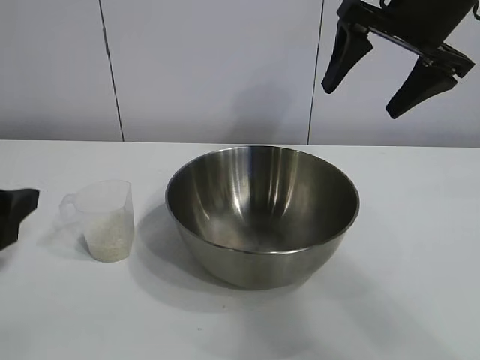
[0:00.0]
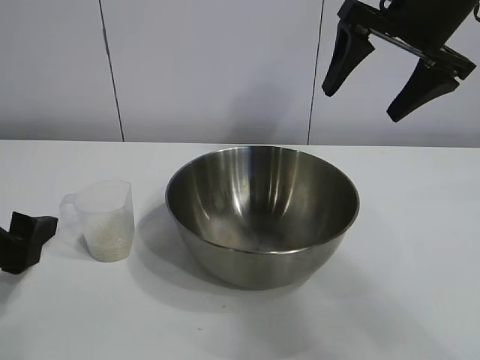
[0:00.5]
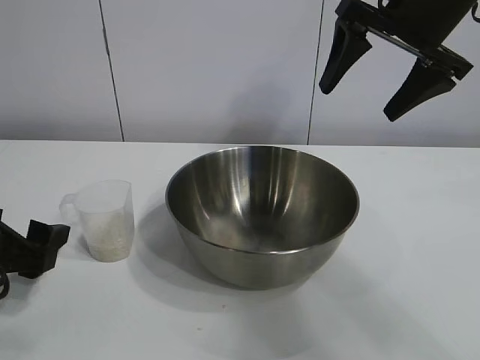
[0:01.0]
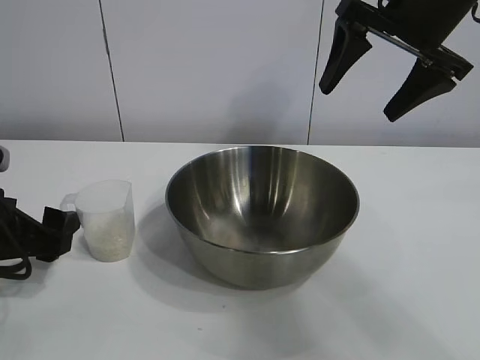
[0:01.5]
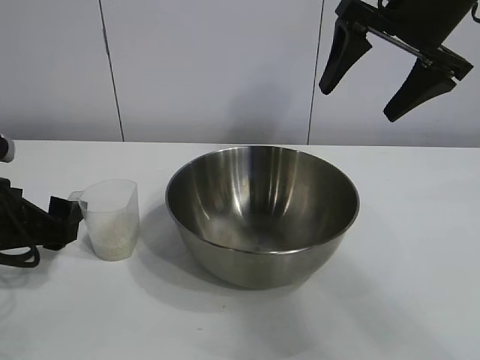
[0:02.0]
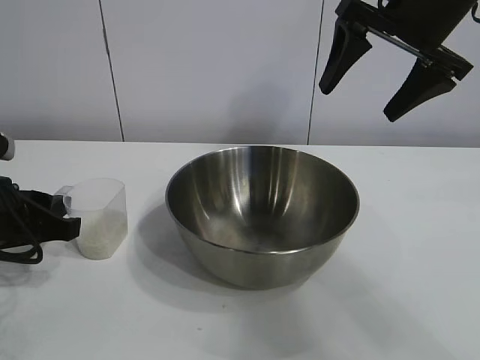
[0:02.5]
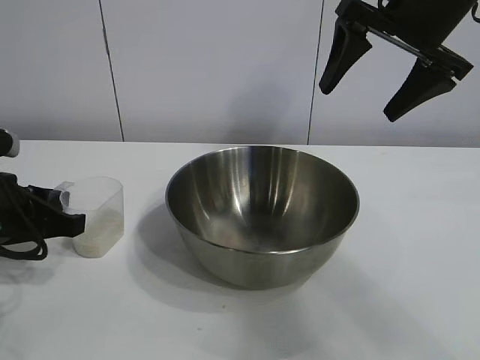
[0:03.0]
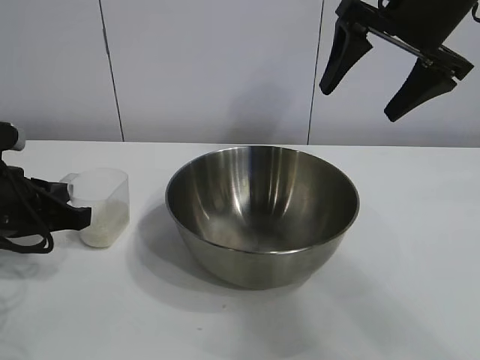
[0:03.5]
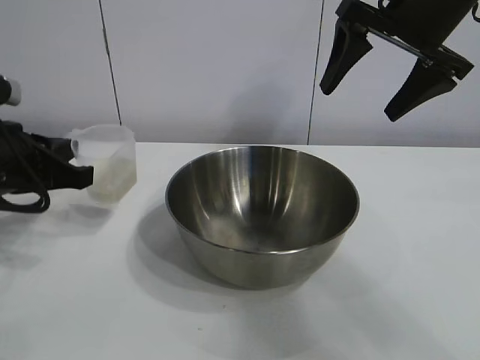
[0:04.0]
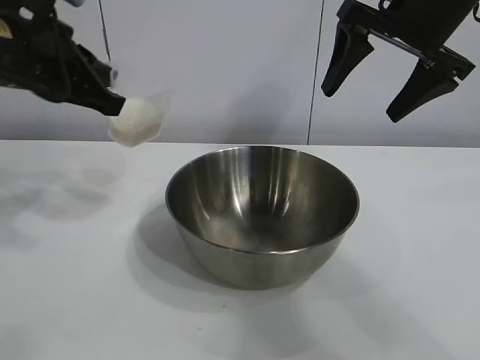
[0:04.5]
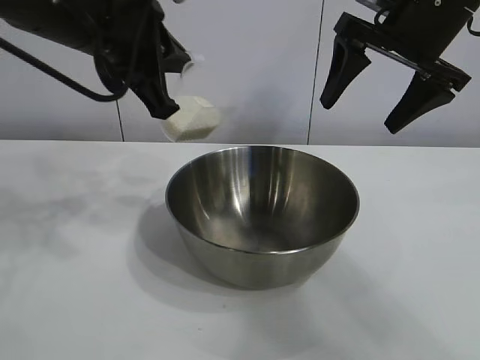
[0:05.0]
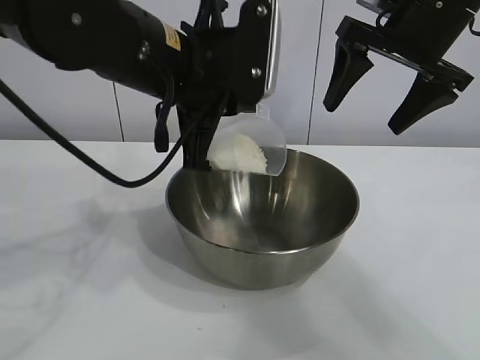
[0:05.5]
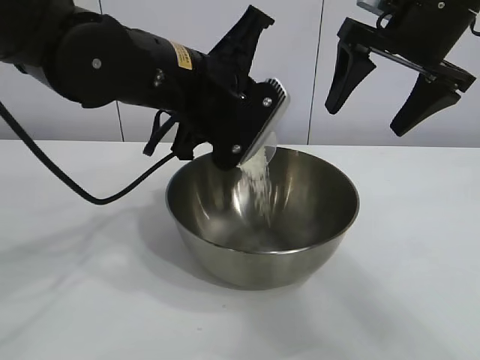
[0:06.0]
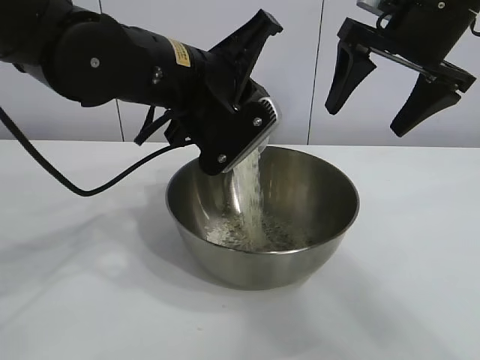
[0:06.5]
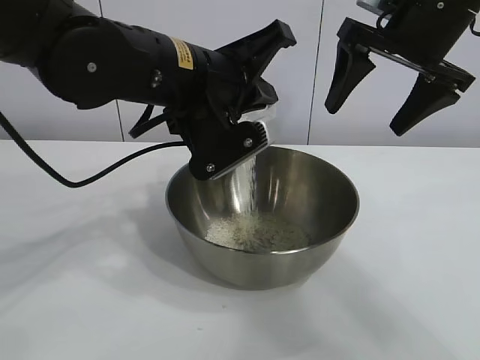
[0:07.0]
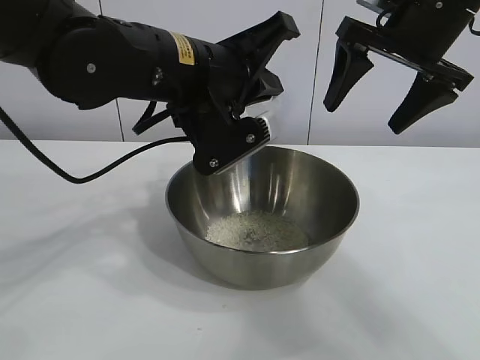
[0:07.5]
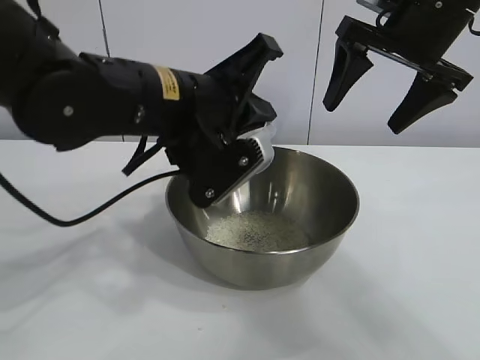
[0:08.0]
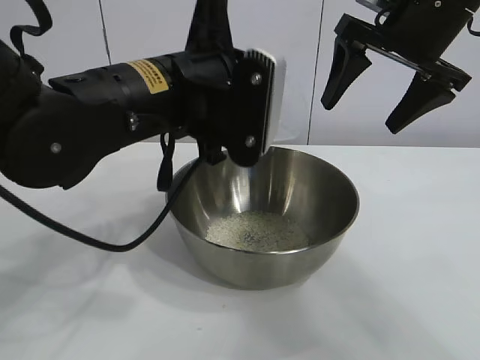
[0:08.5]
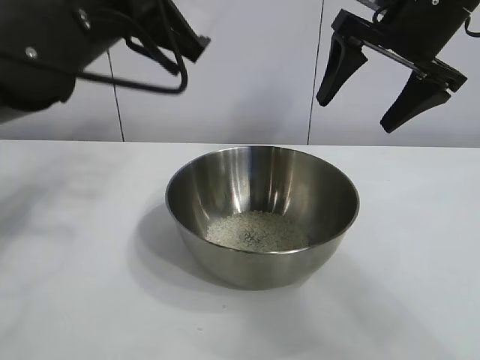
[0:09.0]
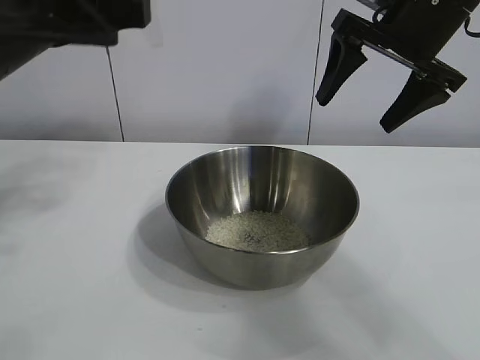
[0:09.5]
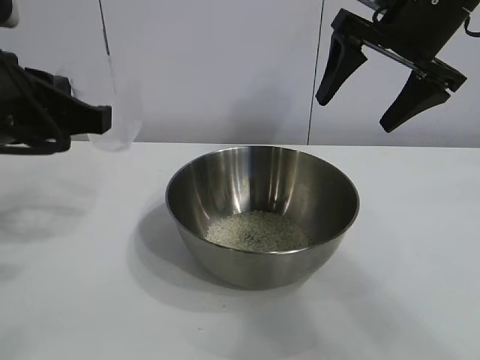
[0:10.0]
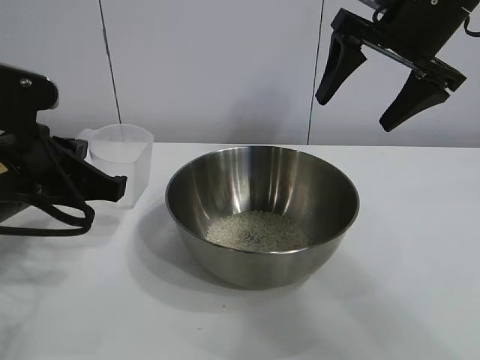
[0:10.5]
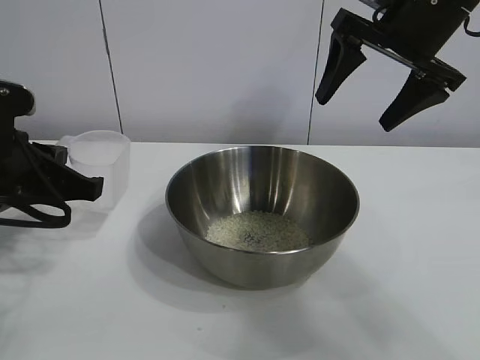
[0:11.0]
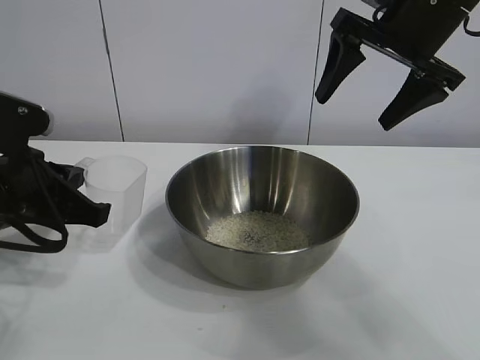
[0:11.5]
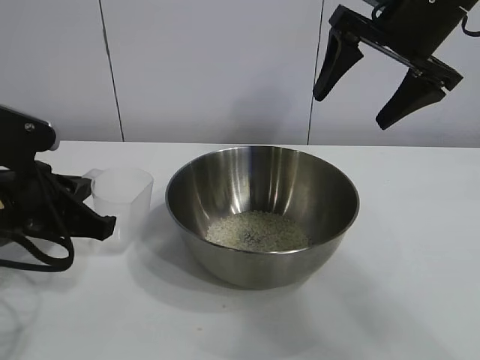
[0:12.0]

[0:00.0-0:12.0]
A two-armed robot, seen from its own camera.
Task of the whole recording: the right gripper grasp the rice container and place it in the center of the table, the left gripper grasp the rice scoop and pour the rice into the rice container.
Step, 0.0 to 3.0 s: Grasp the cup with rice in it with left gripper.
Step, 3.5 to 8.0 s: Pour the rice from the cup into the bowl with the left gripper.

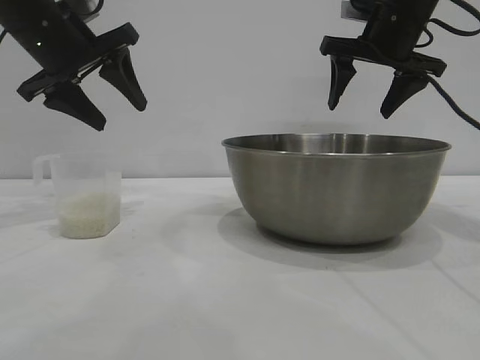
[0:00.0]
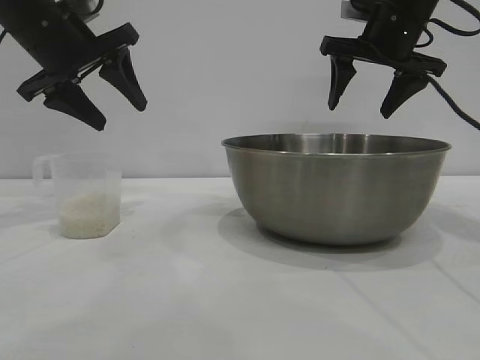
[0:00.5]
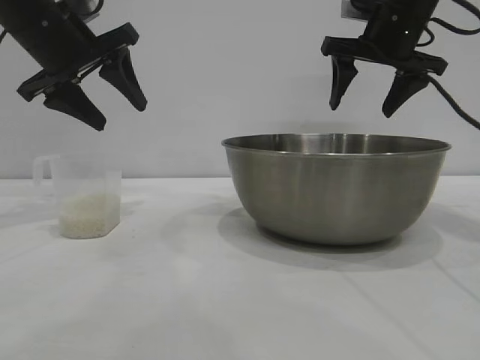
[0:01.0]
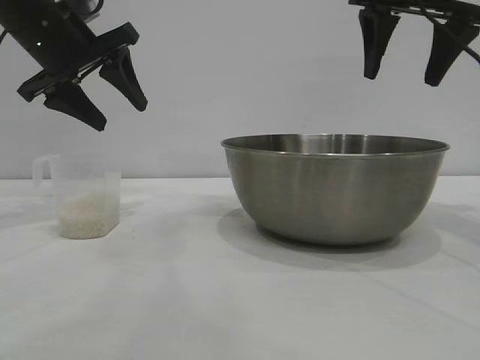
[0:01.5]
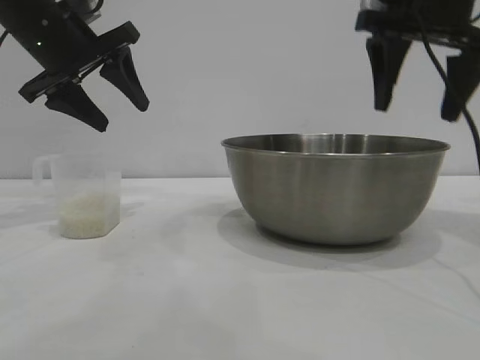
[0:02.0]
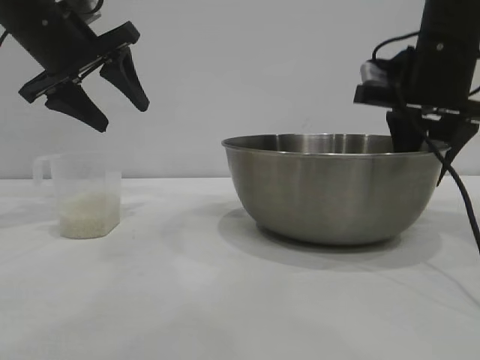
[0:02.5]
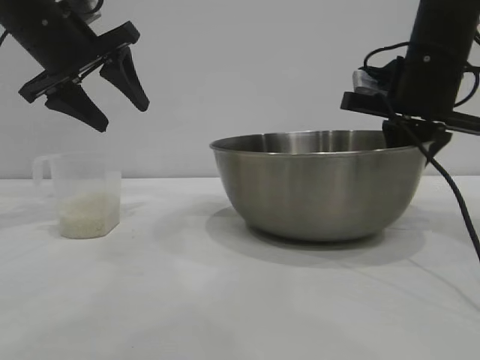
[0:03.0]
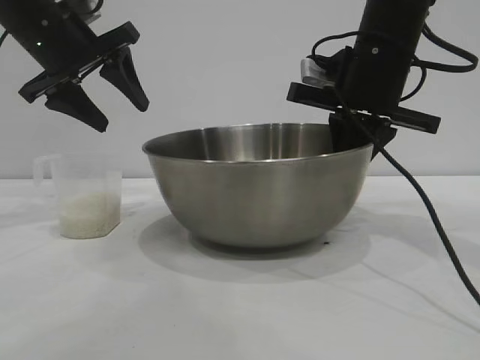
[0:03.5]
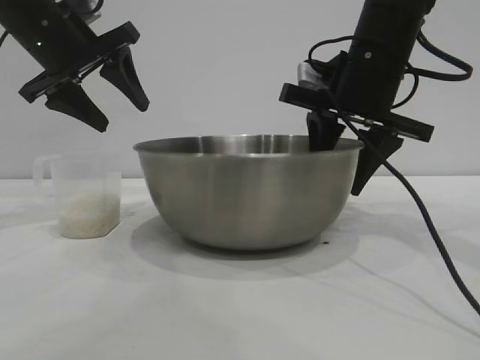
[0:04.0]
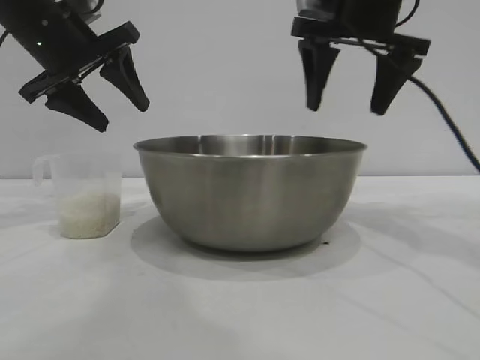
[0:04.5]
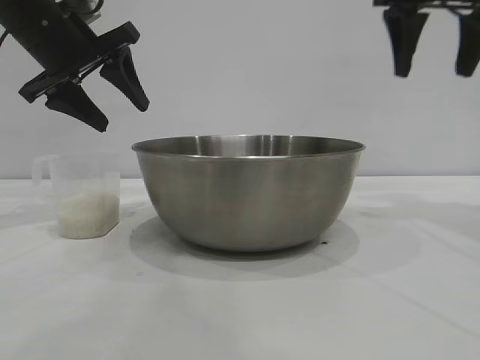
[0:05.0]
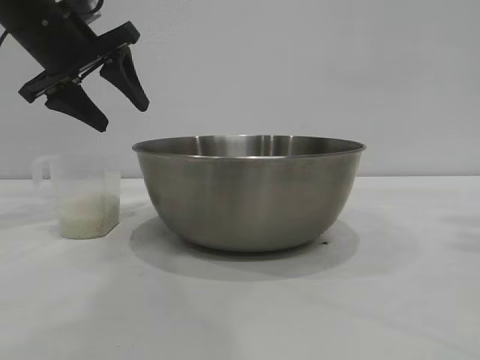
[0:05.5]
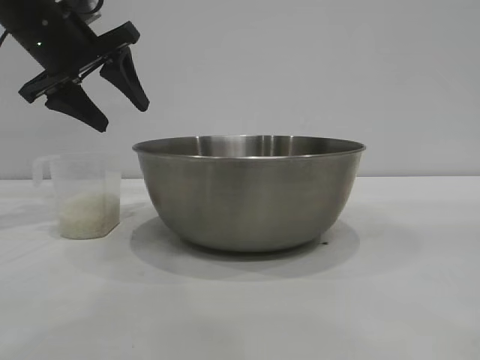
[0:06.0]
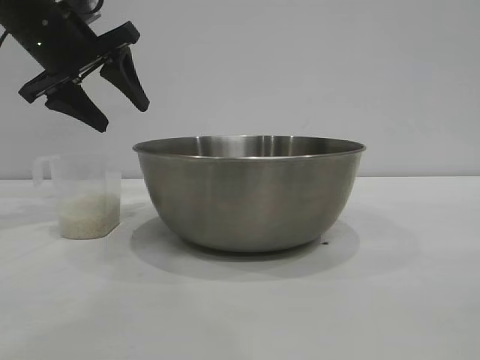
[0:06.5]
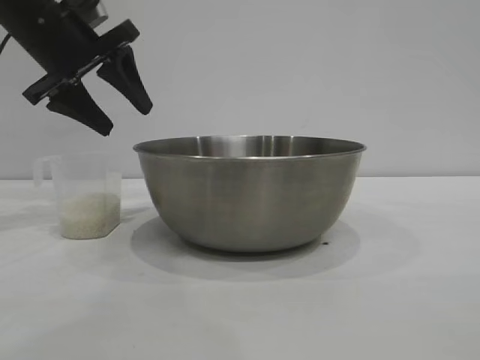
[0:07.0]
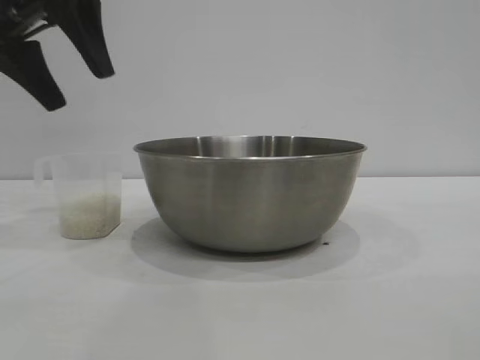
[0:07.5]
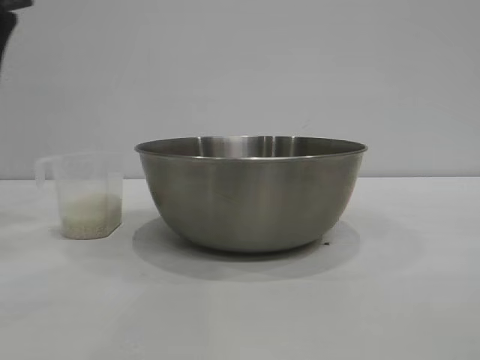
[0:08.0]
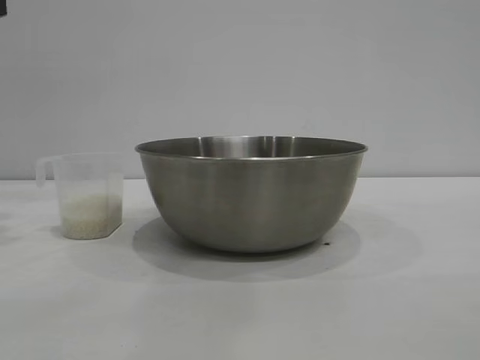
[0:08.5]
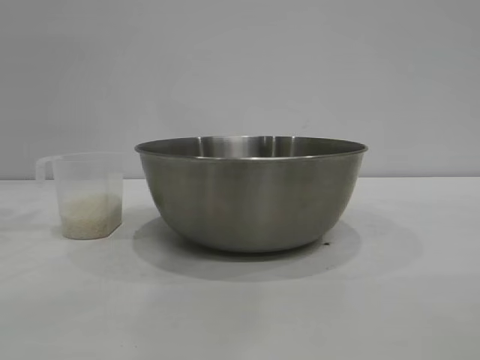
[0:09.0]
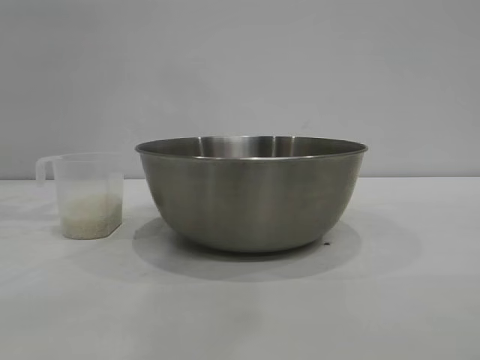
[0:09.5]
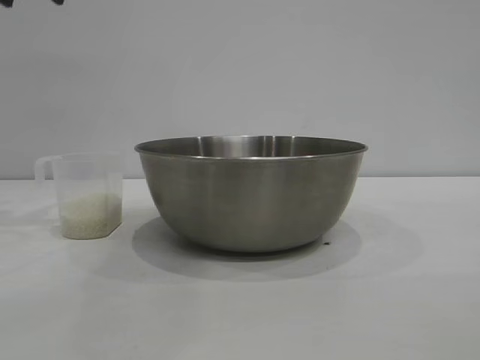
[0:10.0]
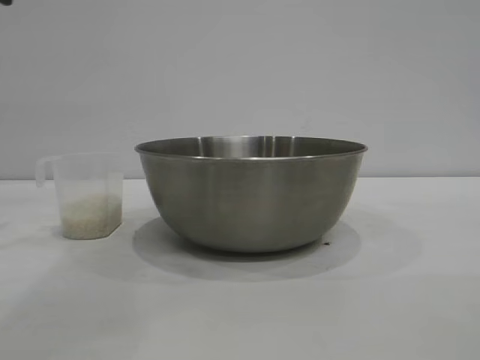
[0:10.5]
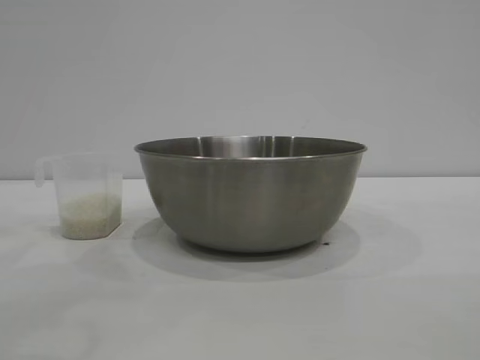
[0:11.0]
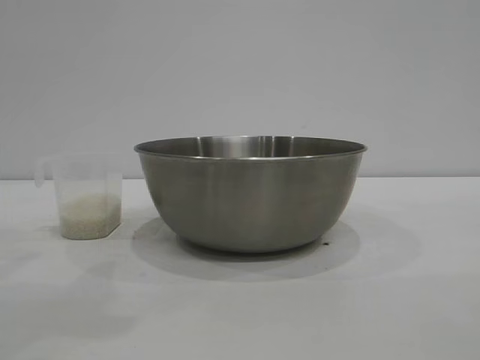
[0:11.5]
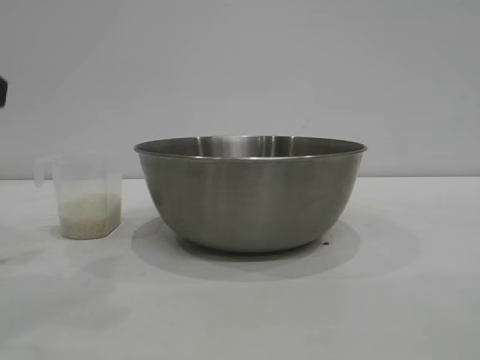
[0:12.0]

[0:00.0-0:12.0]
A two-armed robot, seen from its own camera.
Task of the whole recording: the right gripper grasp the rice container and place it in the center of the table, the left gripper grasp the rice scoop and pour the rice into the rice container.
Step, 0.0 to 4.0 s: Move the bowl to the center of view with the right gripper.

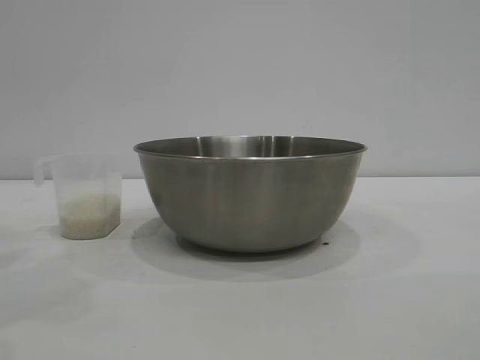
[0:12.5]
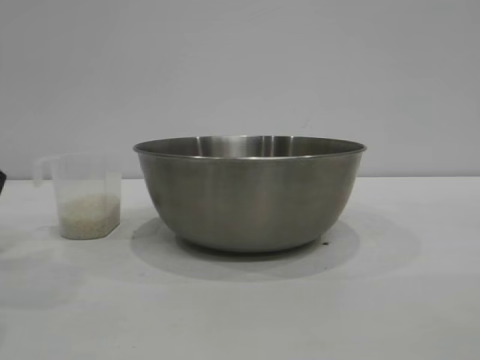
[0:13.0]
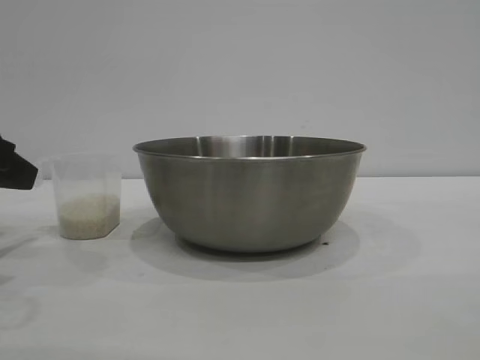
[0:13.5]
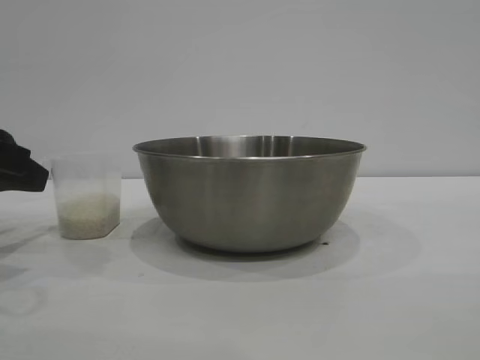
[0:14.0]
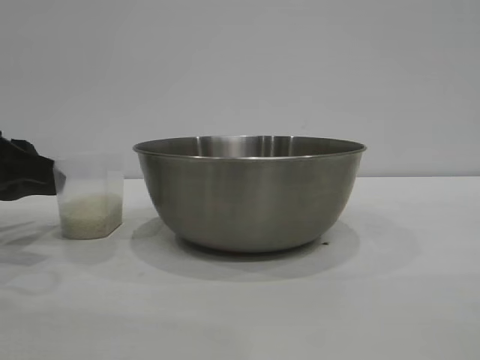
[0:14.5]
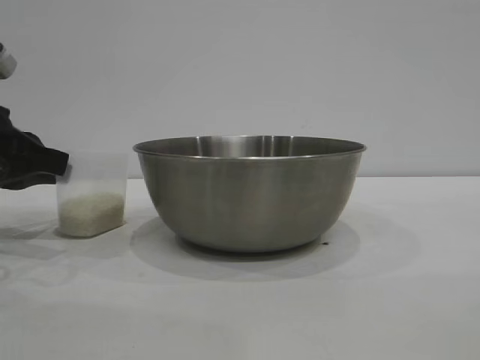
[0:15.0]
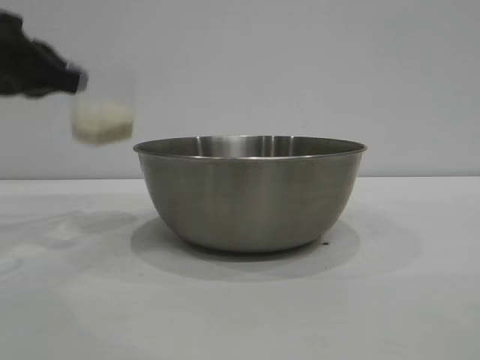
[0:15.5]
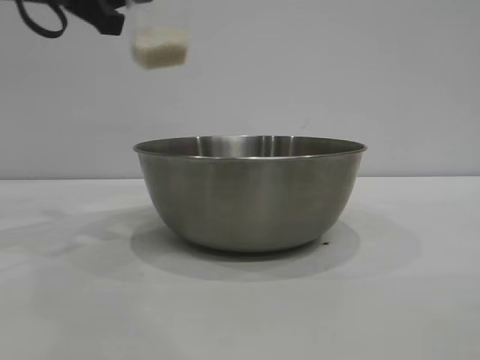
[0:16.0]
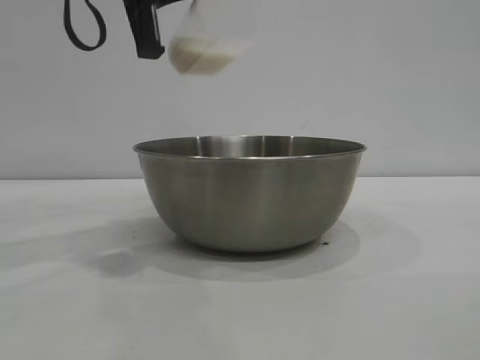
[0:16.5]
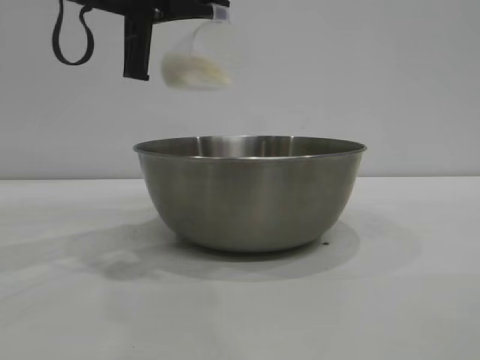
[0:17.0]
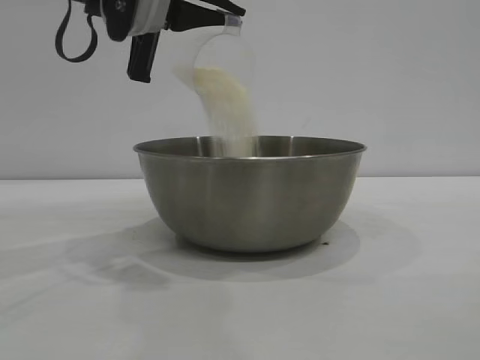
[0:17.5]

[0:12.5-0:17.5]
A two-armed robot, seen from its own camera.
Task of the whole recording: the right gripper grasp the rice container and place it in the center of the table, the left gripper grasp the rice scoop and pour the rice into the rice container.
Step, 12.5 to 15.0 s: Pick up the cup with rice in it with the left gripper.
